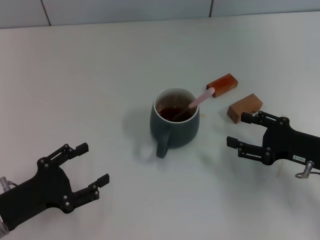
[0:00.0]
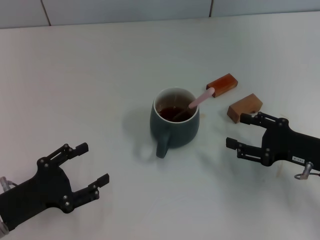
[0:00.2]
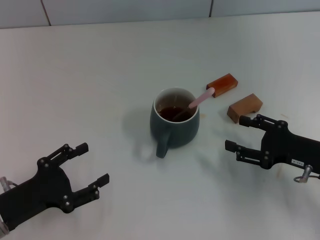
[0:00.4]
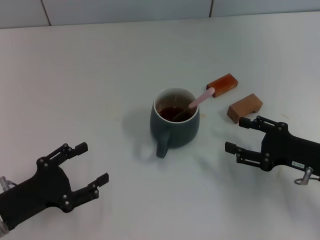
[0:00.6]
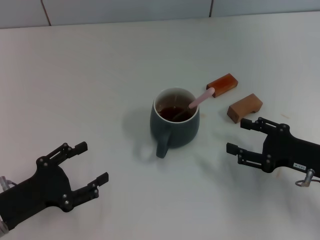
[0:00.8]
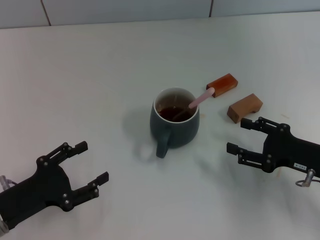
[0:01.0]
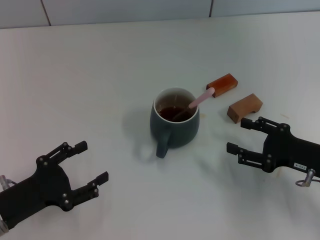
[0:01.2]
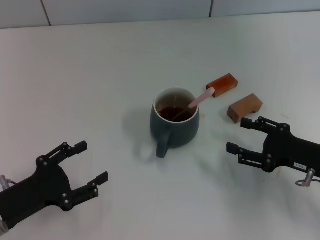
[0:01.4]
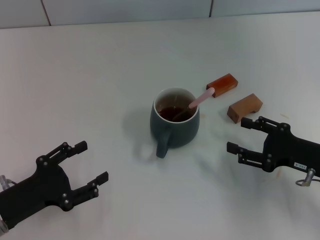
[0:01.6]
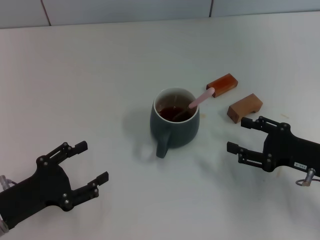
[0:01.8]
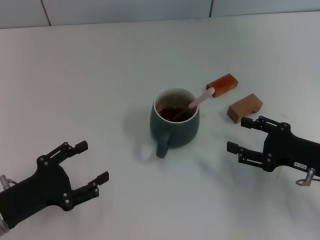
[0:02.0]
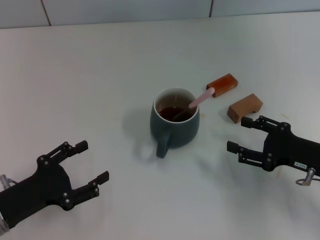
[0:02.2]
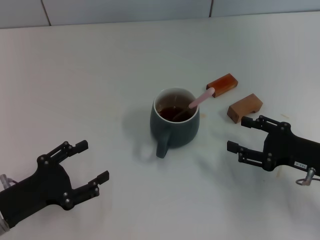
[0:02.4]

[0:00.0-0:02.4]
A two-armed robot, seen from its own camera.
Task of the whole recording: Move the grey cup to the center, lift the pink spoon, stir it three times in the cup, and put the spoon into the cup.
0:00.0 to 0:02.4: Neither gripper changes place.

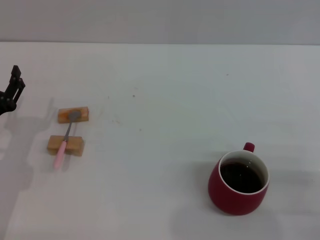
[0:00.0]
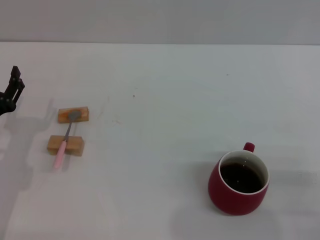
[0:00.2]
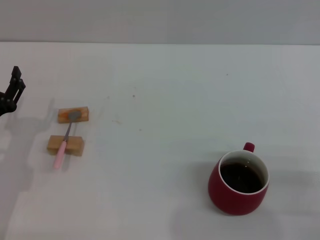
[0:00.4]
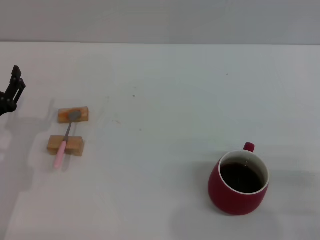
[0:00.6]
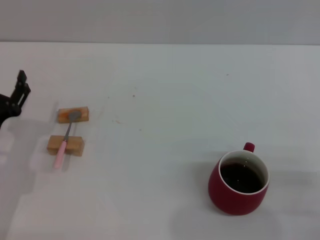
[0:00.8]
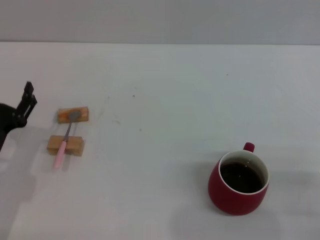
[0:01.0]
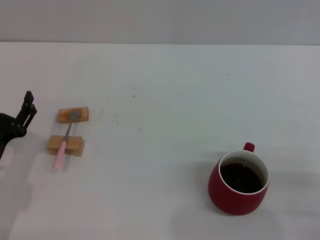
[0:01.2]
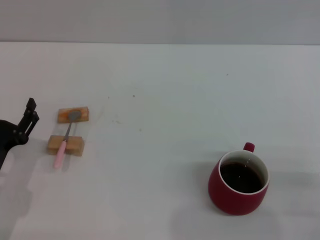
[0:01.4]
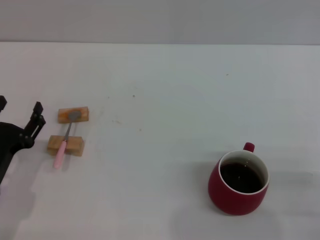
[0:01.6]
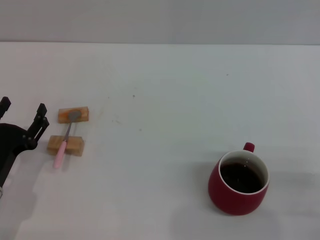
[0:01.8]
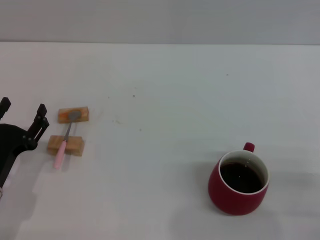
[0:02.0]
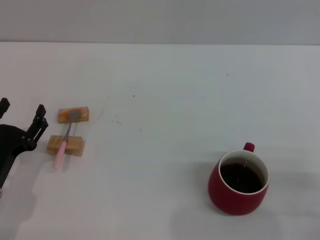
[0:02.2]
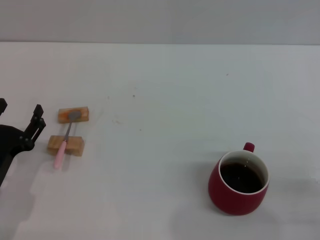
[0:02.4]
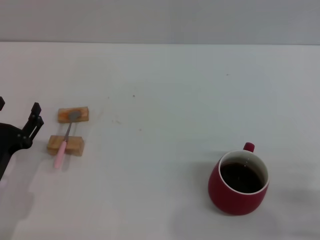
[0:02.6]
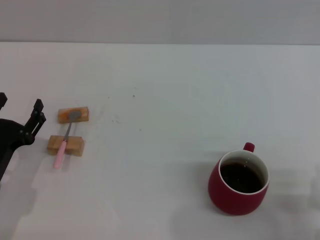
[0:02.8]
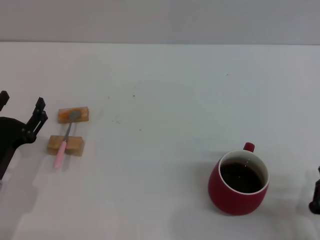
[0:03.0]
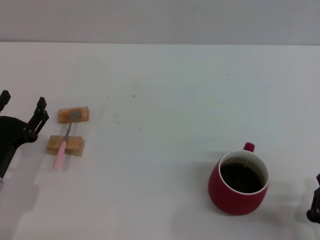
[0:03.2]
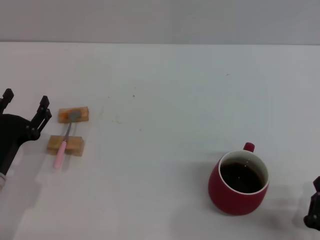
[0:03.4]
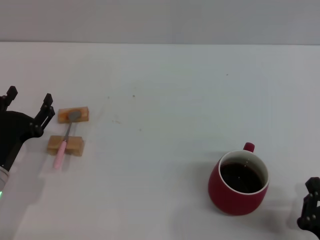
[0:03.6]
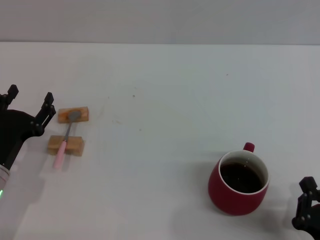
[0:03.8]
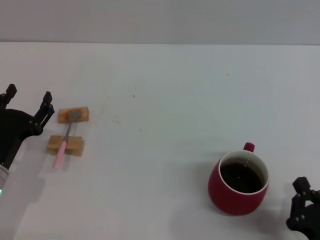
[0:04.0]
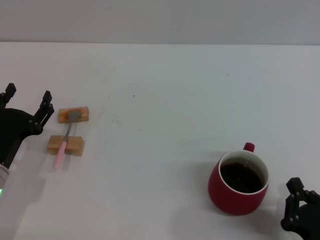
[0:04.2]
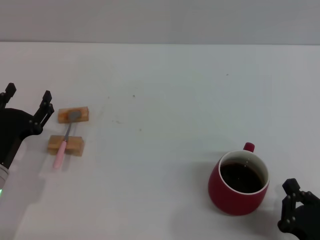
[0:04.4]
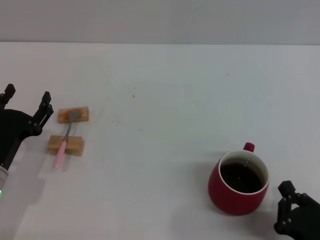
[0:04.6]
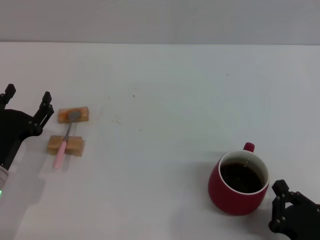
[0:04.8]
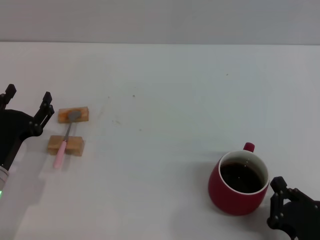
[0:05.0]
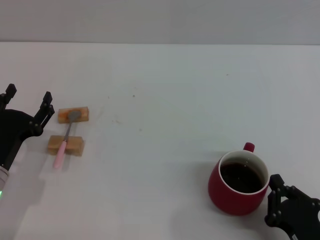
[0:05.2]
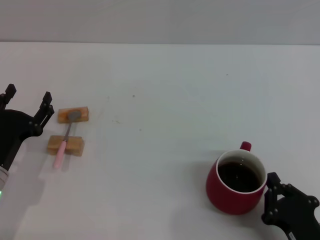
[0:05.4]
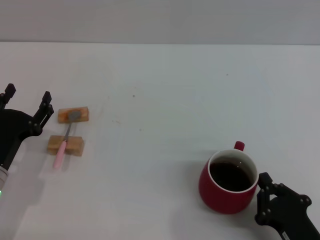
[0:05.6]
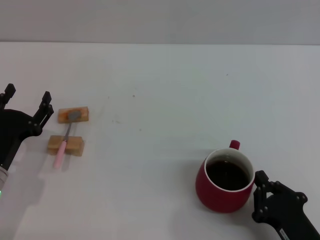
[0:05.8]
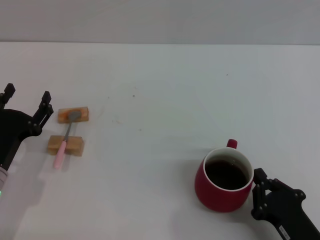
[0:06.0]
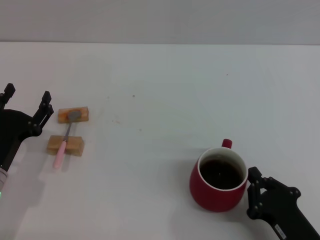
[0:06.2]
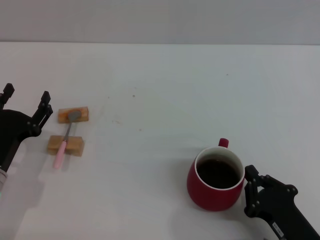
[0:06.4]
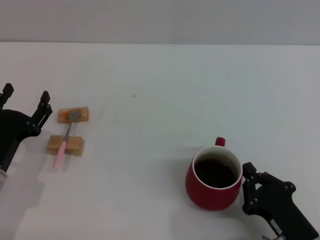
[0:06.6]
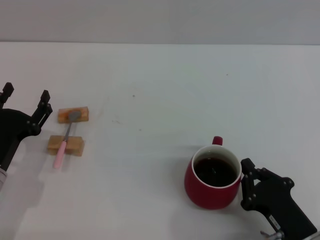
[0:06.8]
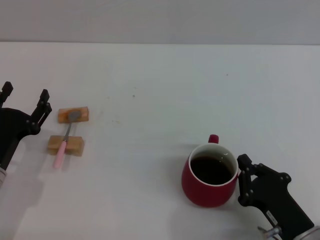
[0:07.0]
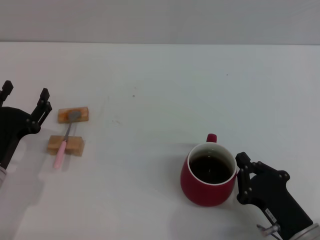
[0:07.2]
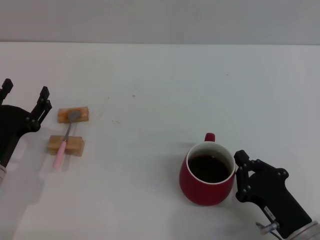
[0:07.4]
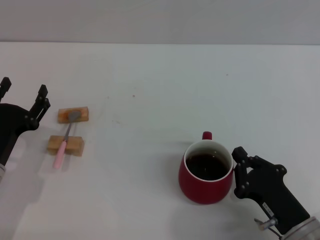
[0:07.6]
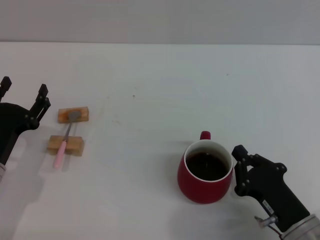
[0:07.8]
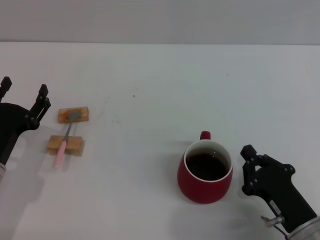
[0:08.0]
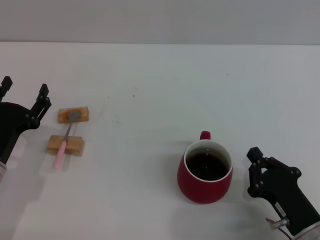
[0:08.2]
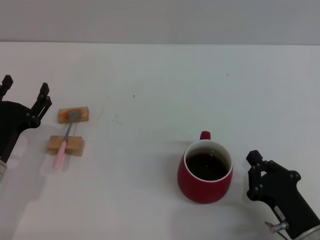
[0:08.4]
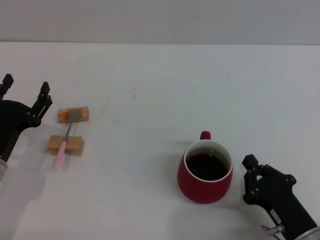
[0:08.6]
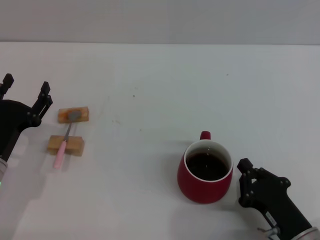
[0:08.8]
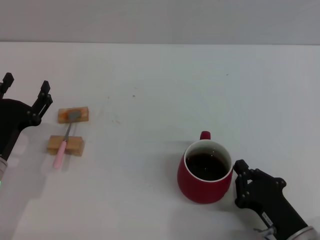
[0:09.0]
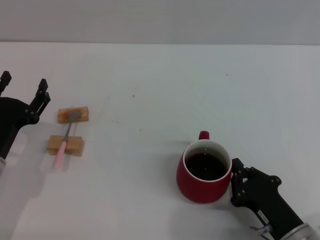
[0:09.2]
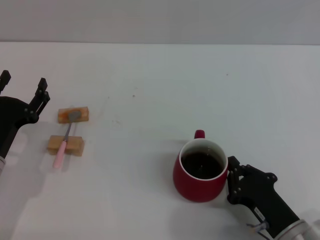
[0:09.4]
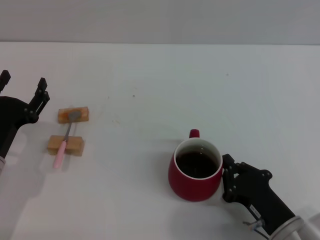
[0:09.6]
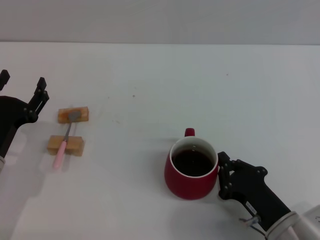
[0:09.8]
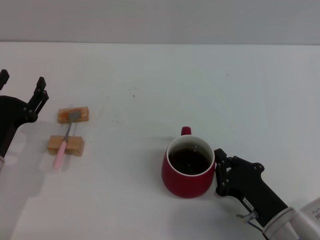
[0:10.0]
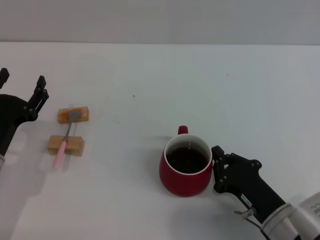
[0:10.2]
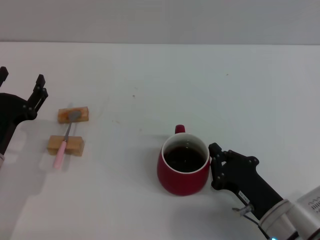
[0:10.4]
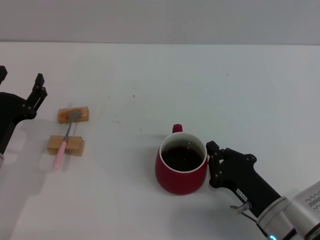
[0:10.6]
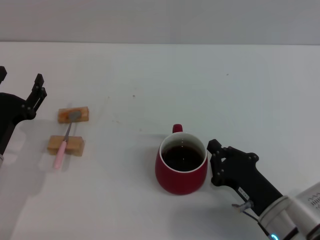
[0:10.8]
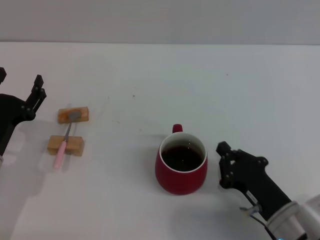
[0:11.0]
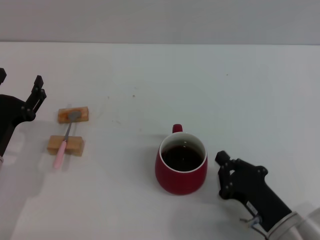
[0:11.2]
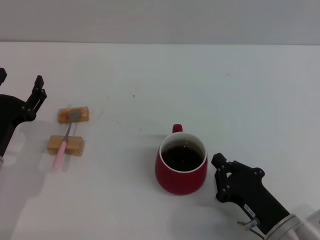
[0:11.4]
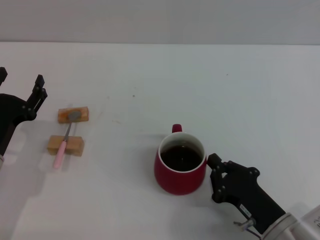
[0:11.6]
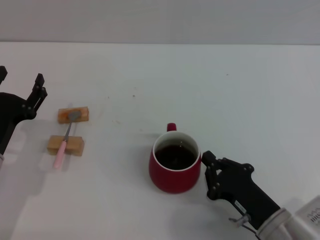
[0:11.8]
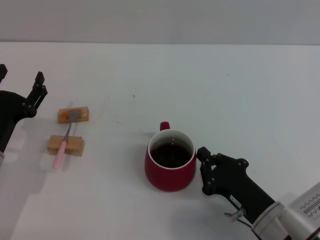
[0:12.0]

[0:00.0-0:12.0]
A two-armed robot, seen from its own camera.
Task of the whole recording: Move the red cup to the center, lift the pink spoon, stir it three times in the cup, and put the spoon into the cup.
Step, 0:00.0 to 0:08.6: Move the cup with coffee to the center of view with the right gripper.
0:00.0 to 0:01.6: The left gripper shifts by approximately 5 cm.
0:01.6 to 0:03.0: The right gripper travels to the left by approximately 5 cm, and closes.
0:03.0 to 0:04.4: There are only small adjustments of the grippers.
0:04.4 to 0:06.0: There are only small adjustments of the grippers.
0:06.0 to 0:09.0: The grippers stay close to where they were, moving slightly.
0:09.0 to 0:12.0: The grippers move only a little.

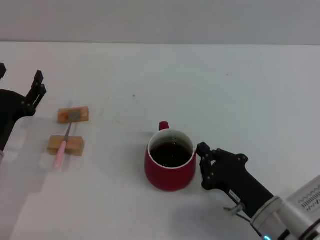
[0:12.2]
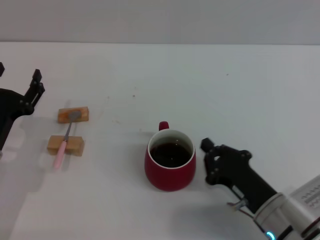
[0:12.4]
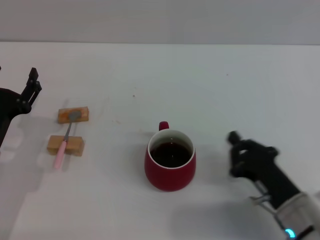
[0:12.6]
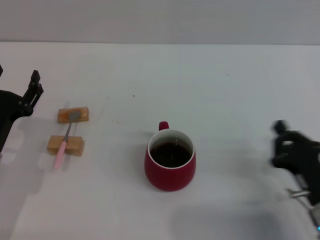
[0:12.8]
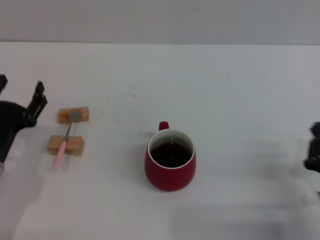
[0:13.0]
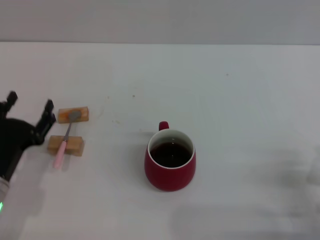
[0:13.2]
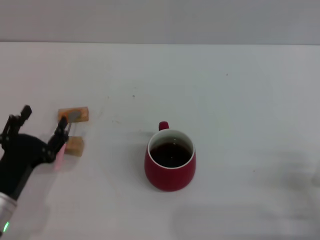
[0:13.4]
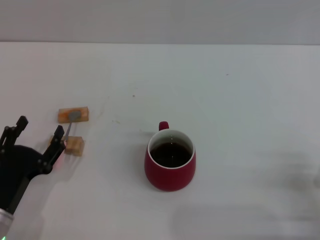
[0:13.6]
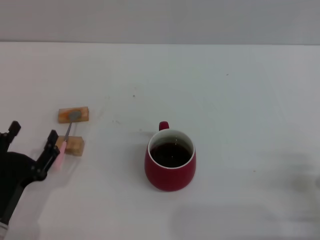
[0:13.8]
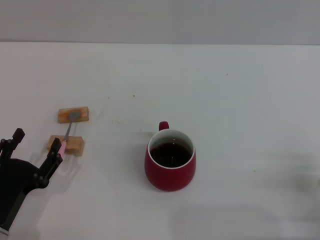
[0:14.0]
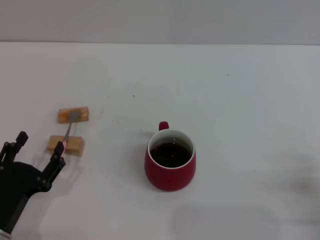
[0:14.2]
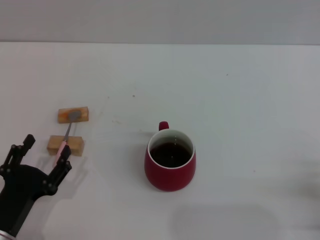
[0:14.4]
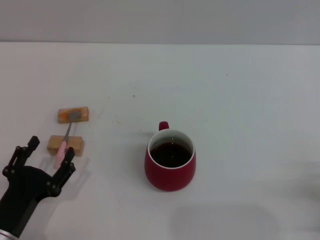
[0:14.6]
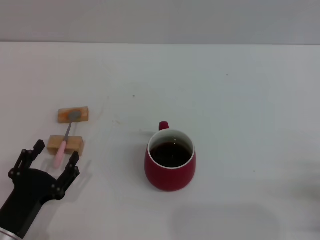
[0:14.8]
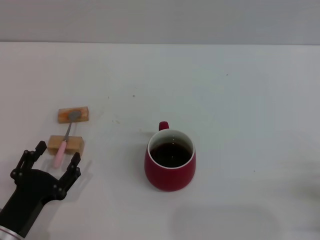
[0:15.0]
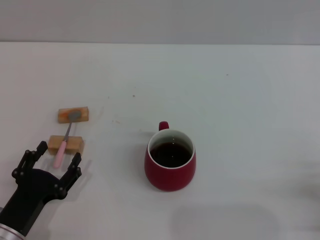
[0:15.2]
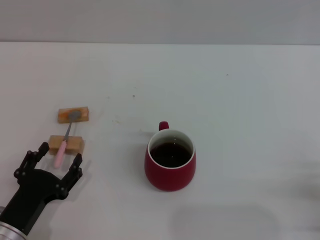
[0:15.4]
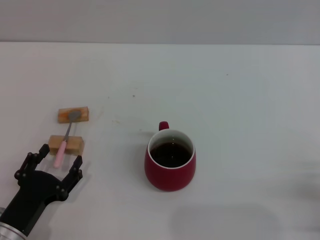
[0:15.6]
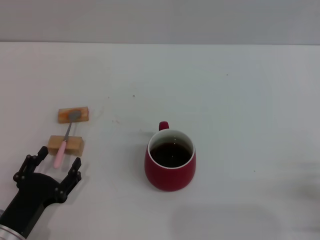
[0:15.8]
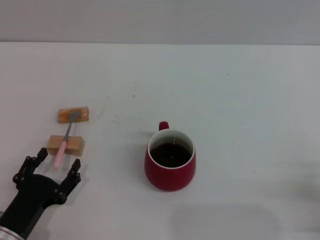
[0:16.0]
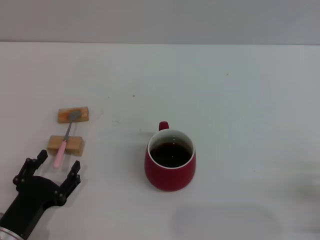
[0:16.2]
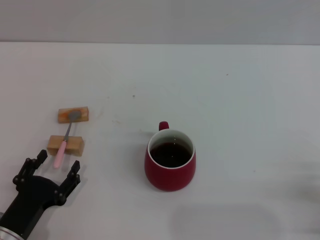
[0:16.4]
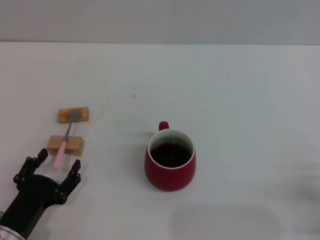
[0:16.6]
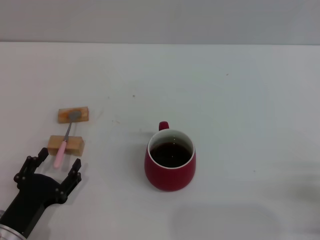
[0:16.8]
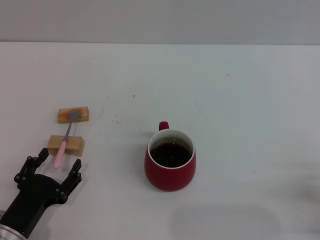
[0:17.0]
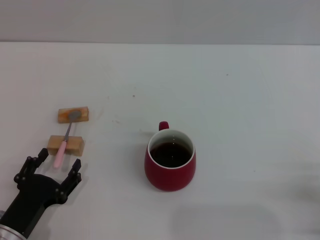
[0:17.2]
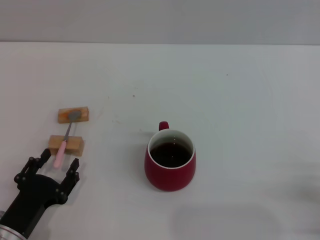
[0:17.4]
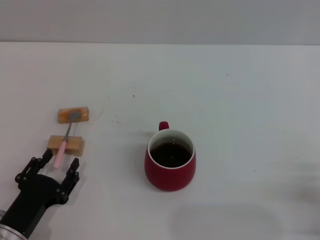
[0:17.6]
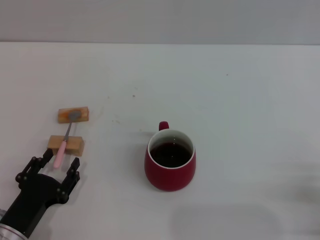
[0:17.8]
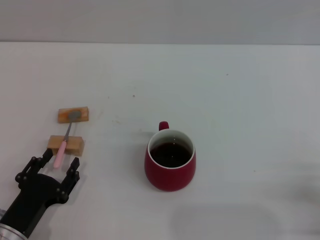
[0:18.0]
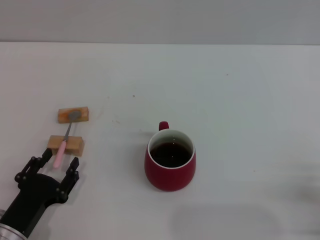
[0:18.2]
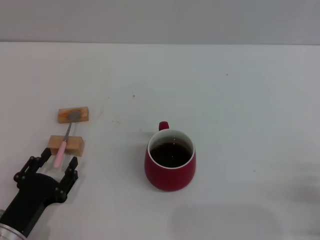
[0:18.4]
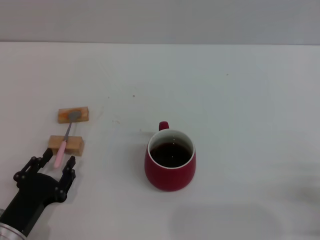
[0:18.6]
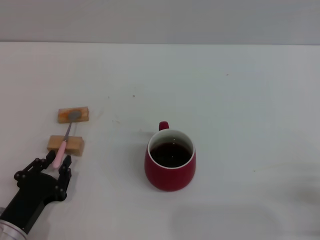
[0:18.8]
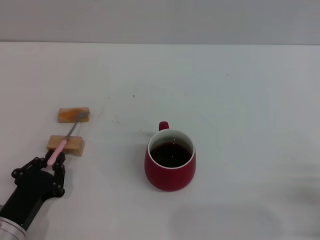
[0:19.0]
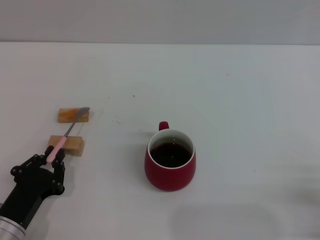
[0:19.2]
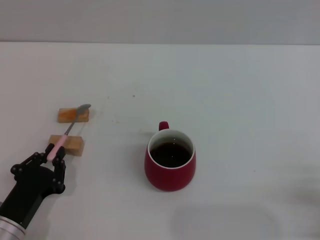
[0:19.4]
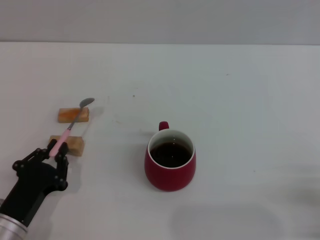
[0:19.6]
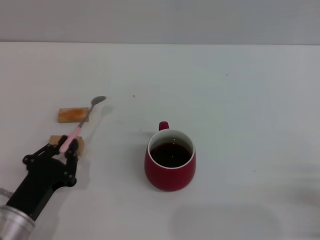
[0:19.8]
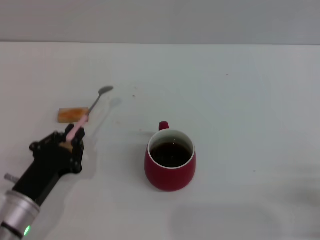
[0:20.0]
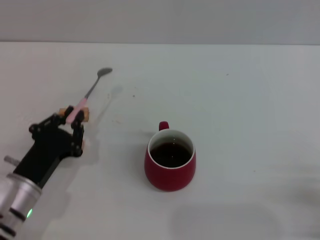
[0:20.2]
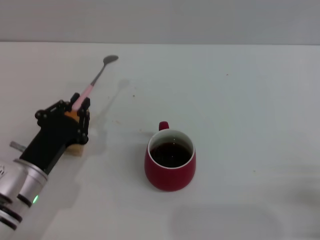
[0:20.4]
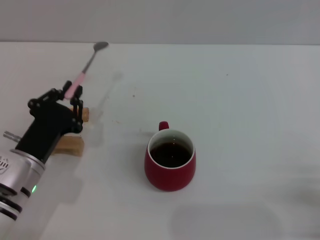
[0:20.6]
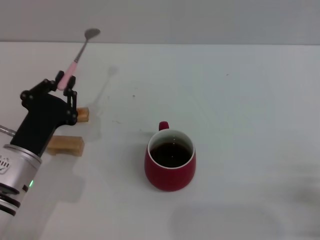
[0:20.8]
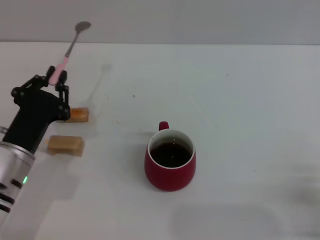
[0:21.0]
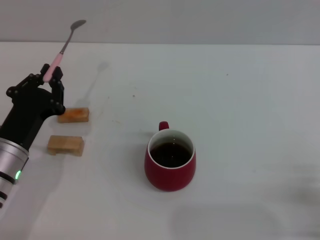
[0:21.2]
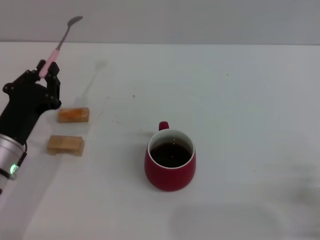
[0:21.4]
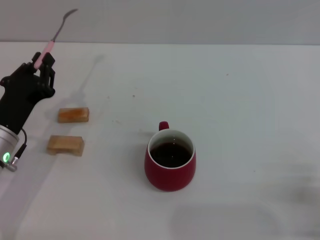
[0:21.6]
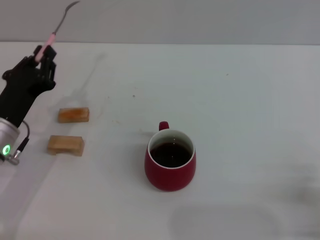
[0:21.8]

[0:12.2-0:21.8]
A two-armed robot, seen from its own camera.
Task of the whole recording: Move the red cup to the center, lift the pink spoon, stir it three times in the cup, and put the spoon into the cup.
Step, 0:12.2 to 0:20.6: Pick up the spoon with the left gripper.
0:12.2 to 0:13.8: The right gripper is displaced to the right by about 15 cm. The left gripper is displaced backward by some 10 cm.
0:13.8 to 0:15.4: There are only small adjustments of the grippers.
0:15.4 to 0:18.6: The two grippers keep their place.
0:18.6 to 0:20.2: The left gripper moves forward, about 5 cm, and closes.
0:20.2 to 0:21.8: The left gripper moves forward and upward, about 10 cm.
